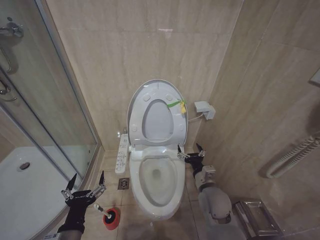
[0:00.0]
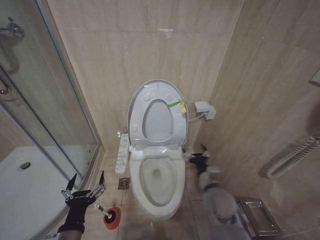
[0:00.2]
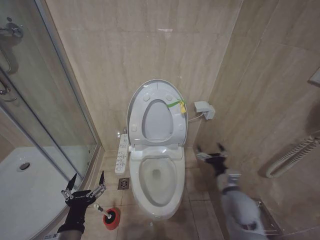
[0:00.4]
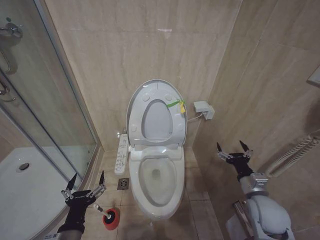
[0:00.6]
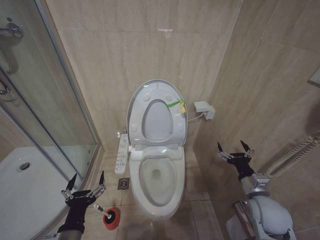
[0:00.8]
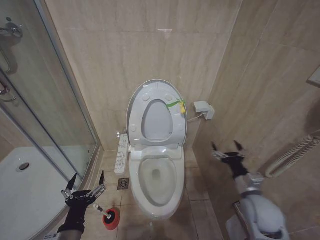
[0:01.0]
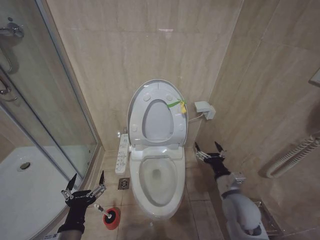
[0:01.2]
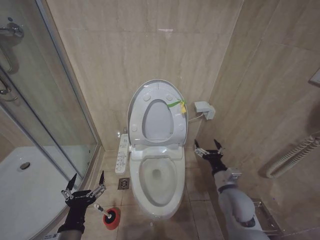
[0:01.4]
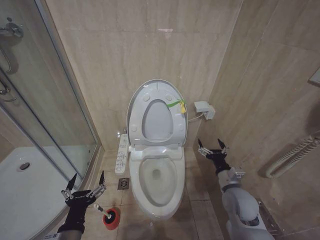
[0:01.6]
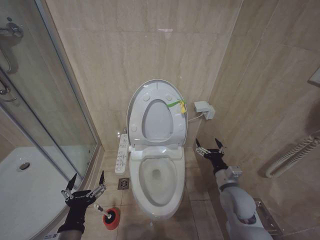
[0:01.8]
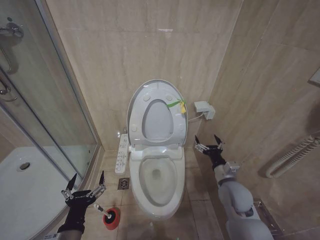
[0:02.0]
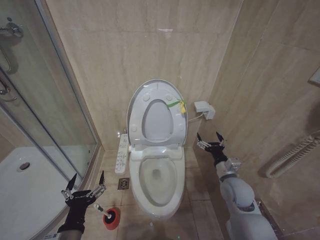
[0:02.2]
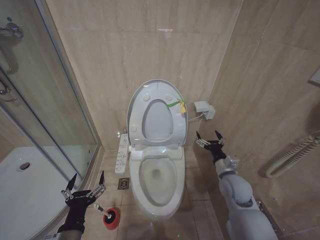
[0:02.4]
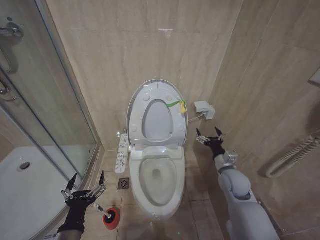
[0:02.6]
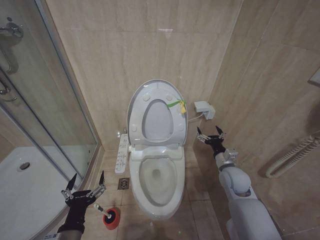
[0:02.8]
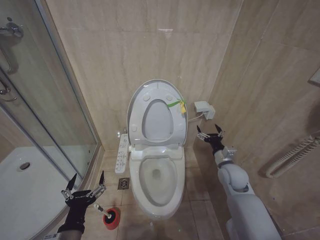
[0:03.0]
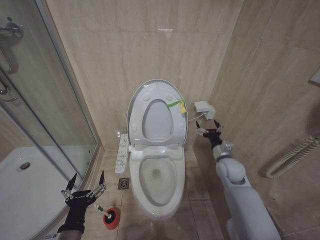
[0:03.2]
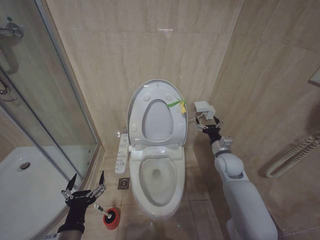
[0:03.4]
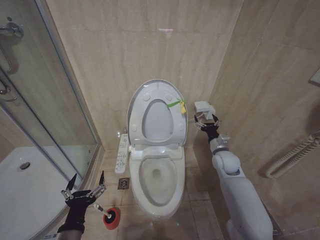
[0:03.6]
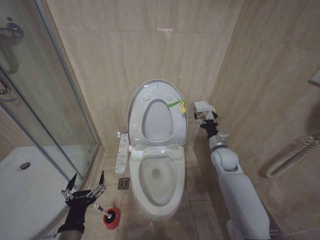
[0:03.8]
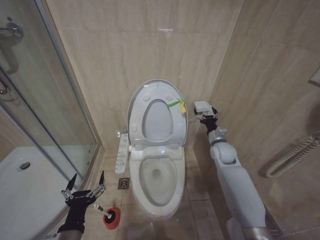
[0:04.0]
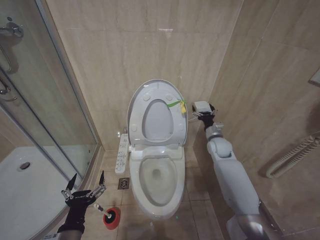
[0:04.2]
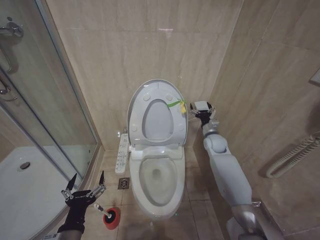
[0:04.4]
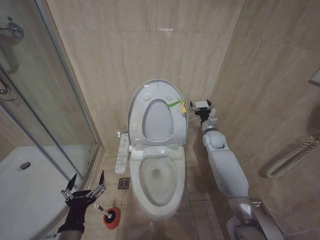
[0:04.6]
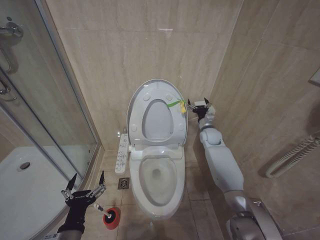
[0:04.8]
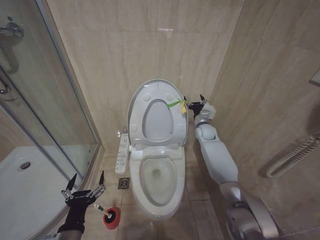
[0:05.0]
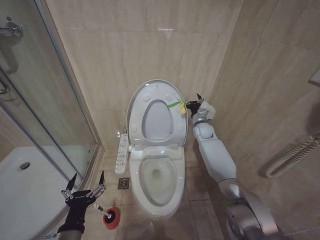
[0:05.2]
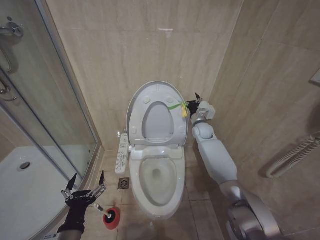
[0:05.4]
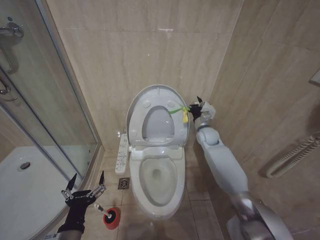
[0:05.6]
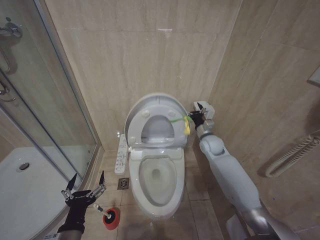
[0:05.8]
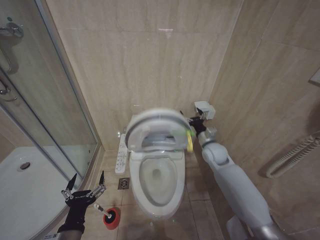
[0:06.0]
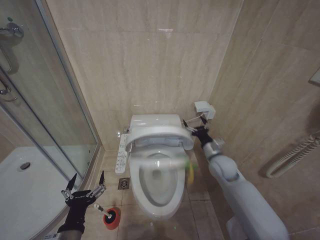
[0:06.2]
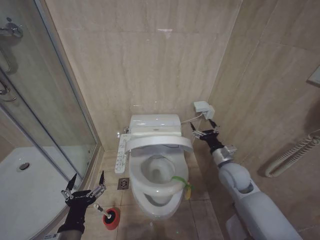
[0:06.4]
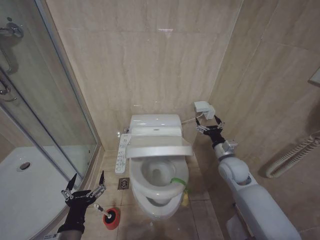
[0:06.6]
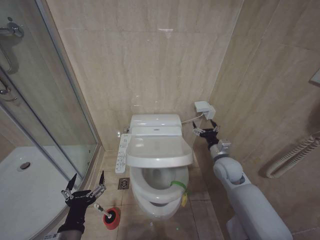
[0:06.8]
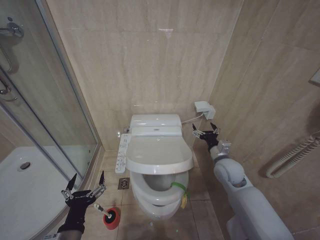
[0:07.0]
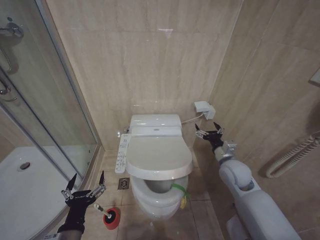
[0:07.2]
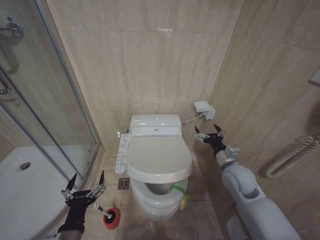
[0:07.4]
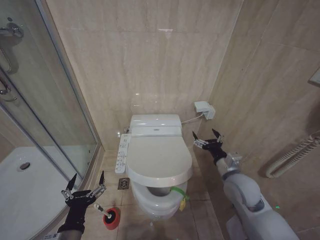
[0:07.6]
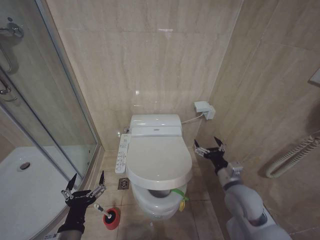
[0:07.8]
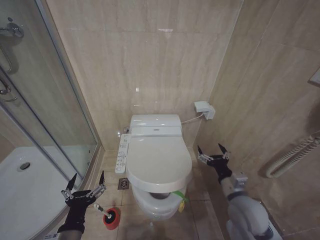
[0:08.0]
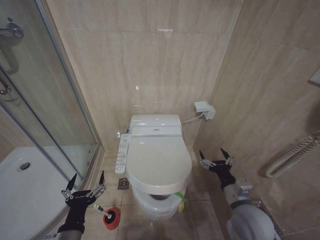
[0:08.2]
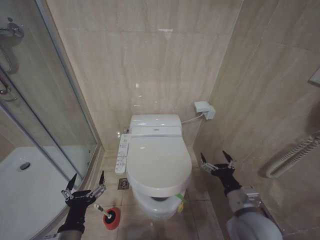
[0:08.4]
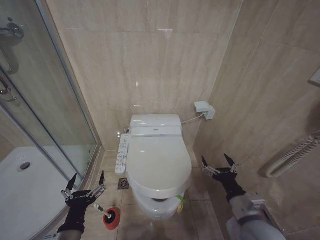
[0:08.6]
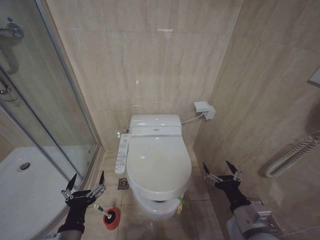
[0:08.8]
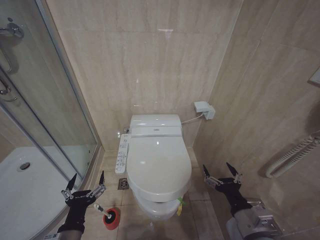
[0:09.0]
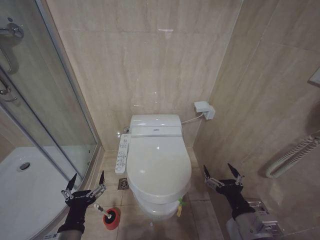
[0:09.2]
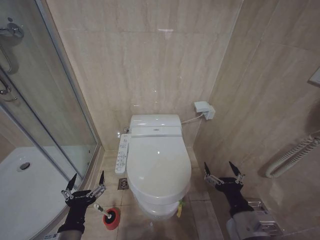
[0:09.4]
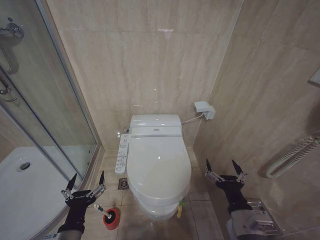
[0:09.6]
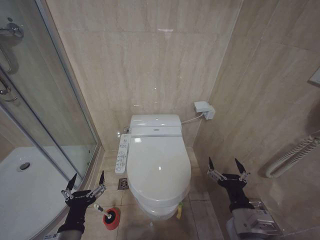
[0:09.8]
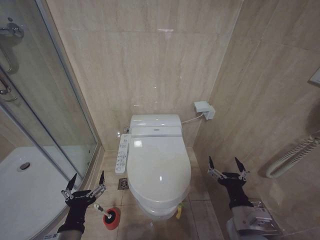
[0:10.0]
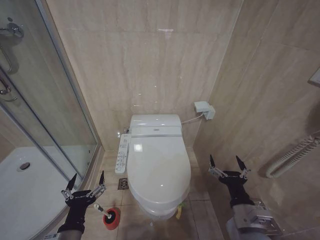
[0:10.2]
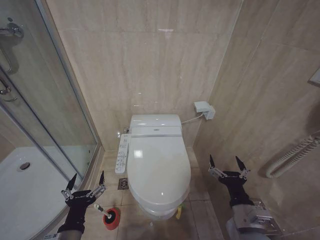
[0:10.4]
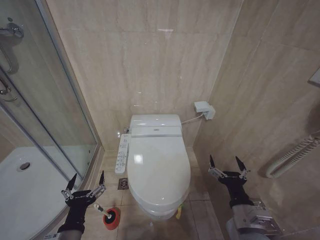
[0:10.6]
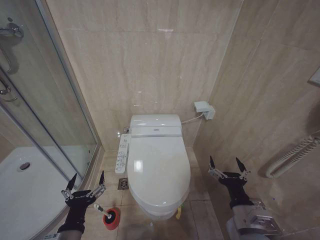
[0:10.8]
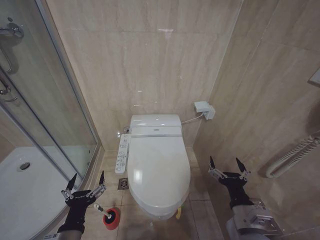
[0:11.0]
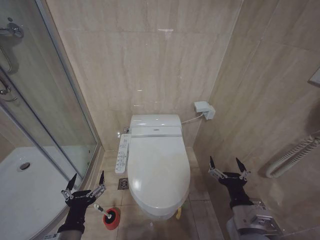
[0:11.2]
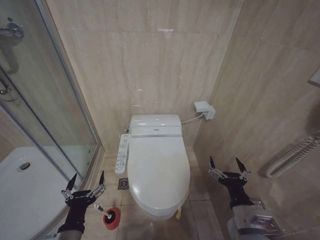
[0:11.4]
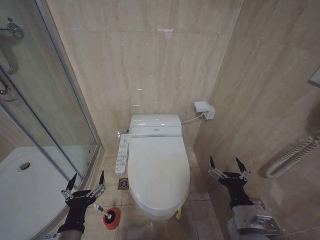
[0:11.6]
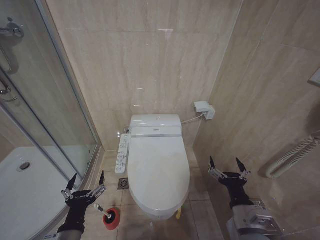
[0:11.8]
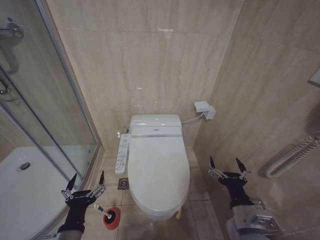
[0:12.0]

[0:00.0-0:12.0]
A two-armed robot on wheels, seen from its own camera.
Task of the whole recording: Open the toilet lid, clean the toilet bowl with a toilet brush, close the toilet lid, and flush.
0:00.0 to 0:01.6: The right gripper shifts approximately 10 cm to the right.
0:01.6 to 0:03.0: The right gripper heads forward, covering about 10 cm.
0:03.0 to 0:04.4: The right gripper is displaced forward by approximately 15 cm.
0:04.4 to 0:06.0: The right gripper ends up roughly 5 cm from where it was.
0:06.0 to 0:07.6: The right gripper is displaced backward by about 15 cm.
0:07.6 to 0:09.0: The right gripper shifts approximately 15 cm backward.
0:09.0 to 0:10.4: The grippers make only small movements.
0:10.4 to 0:12.0: The two grippers keep their place.

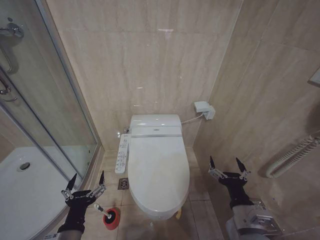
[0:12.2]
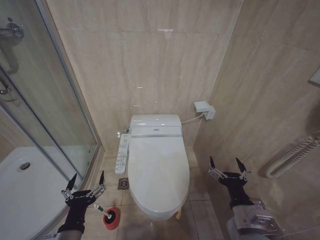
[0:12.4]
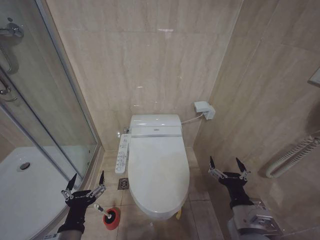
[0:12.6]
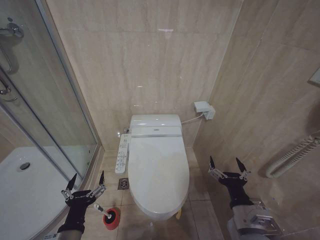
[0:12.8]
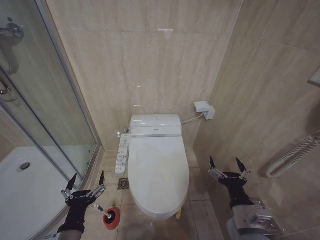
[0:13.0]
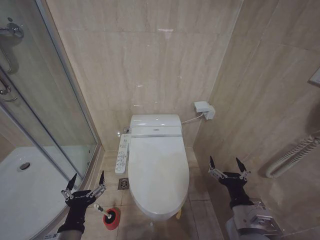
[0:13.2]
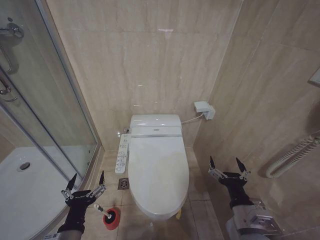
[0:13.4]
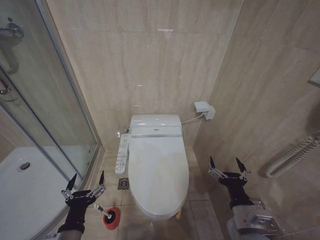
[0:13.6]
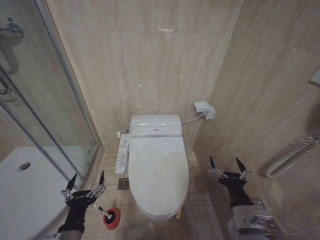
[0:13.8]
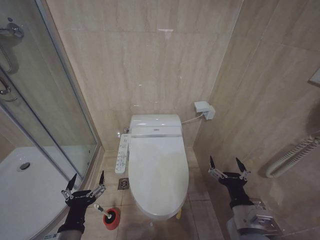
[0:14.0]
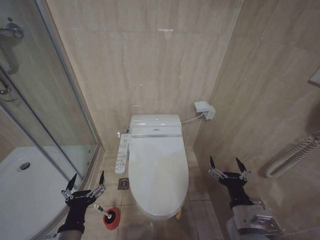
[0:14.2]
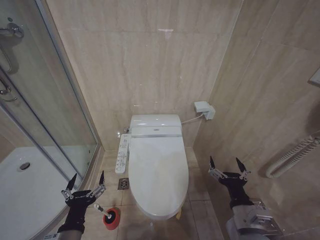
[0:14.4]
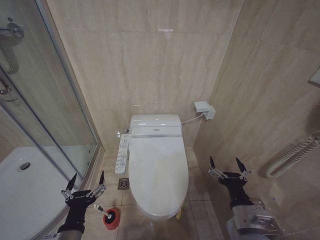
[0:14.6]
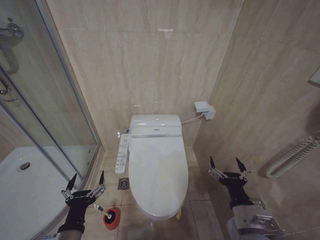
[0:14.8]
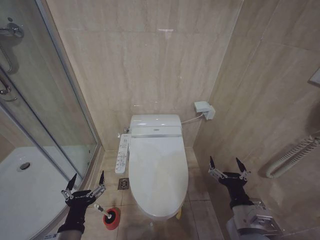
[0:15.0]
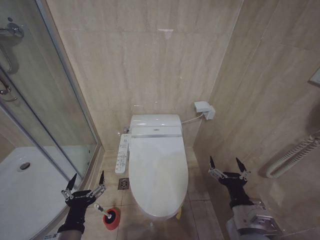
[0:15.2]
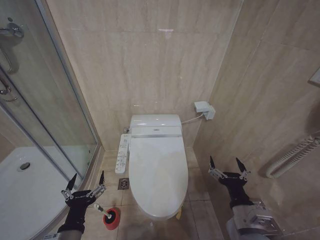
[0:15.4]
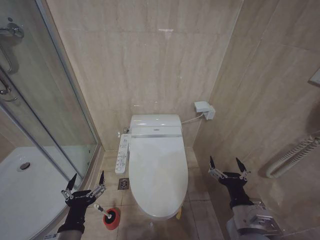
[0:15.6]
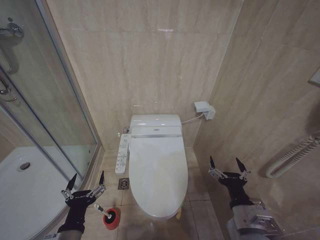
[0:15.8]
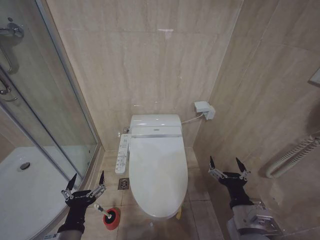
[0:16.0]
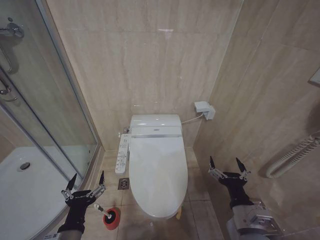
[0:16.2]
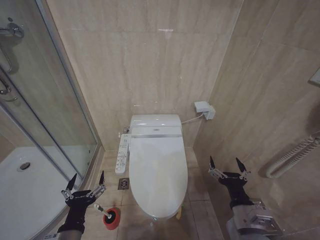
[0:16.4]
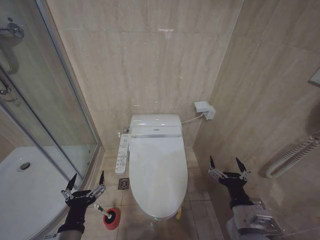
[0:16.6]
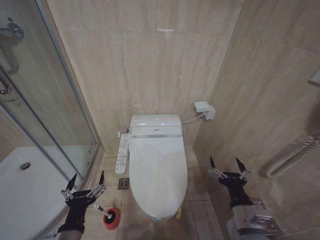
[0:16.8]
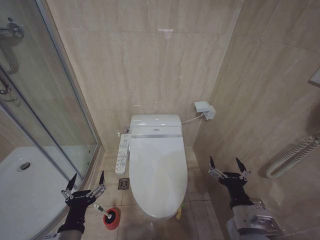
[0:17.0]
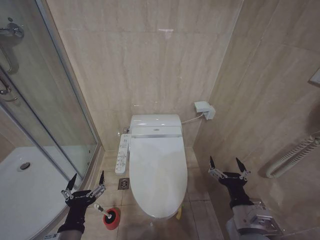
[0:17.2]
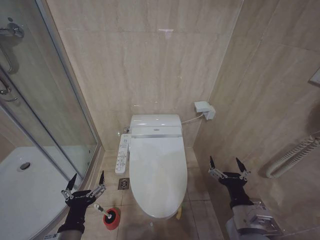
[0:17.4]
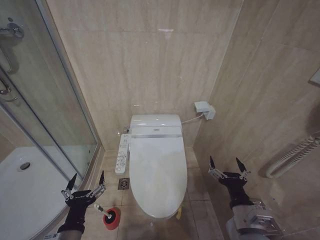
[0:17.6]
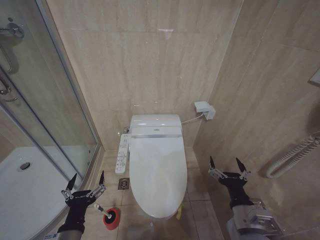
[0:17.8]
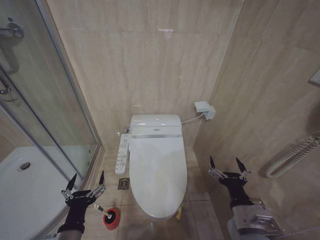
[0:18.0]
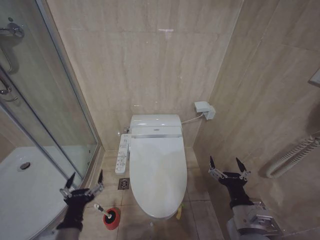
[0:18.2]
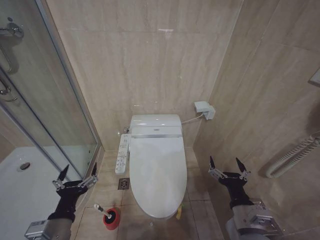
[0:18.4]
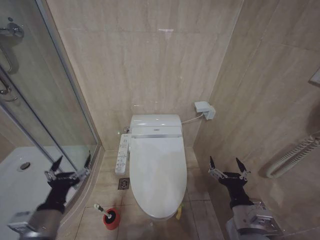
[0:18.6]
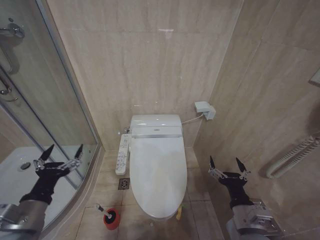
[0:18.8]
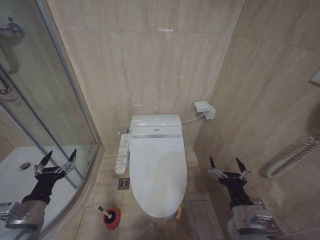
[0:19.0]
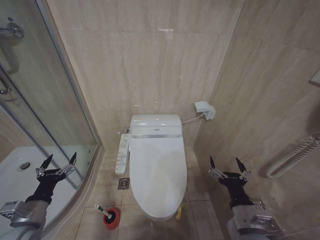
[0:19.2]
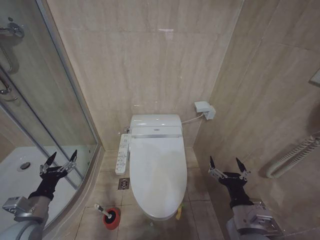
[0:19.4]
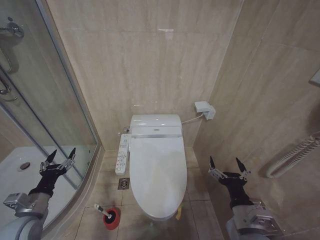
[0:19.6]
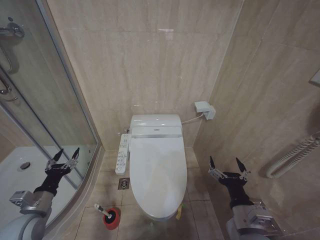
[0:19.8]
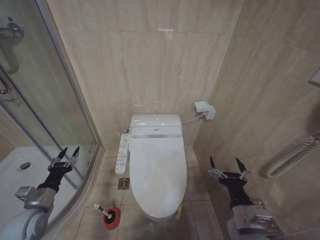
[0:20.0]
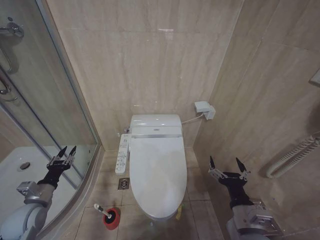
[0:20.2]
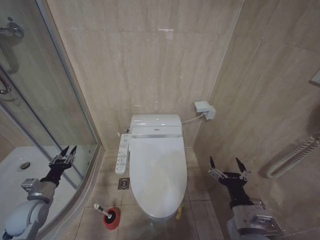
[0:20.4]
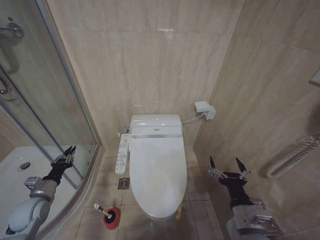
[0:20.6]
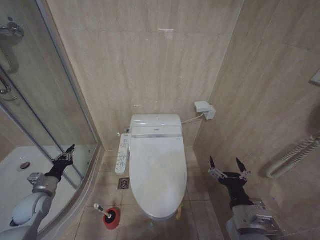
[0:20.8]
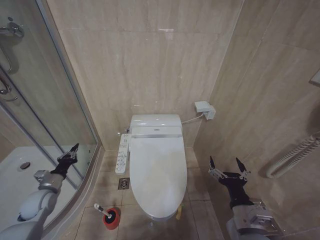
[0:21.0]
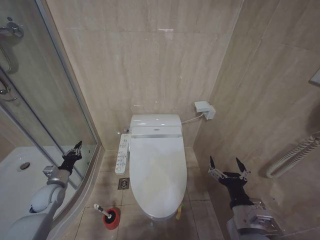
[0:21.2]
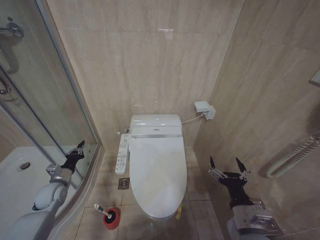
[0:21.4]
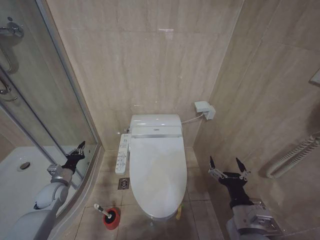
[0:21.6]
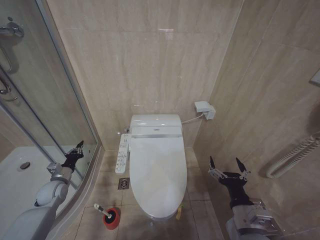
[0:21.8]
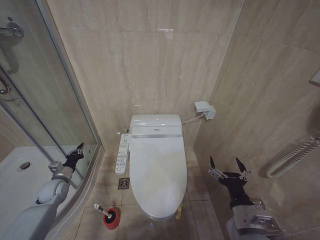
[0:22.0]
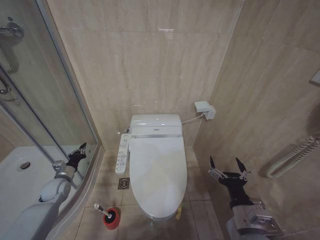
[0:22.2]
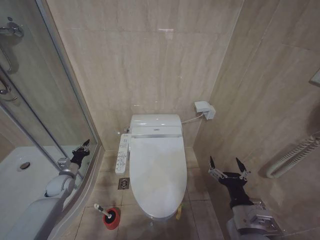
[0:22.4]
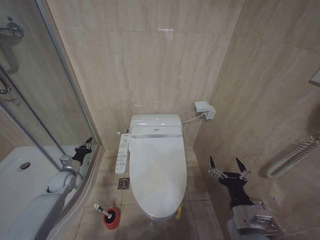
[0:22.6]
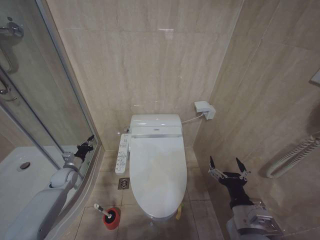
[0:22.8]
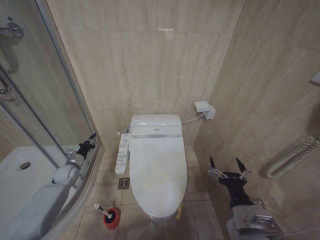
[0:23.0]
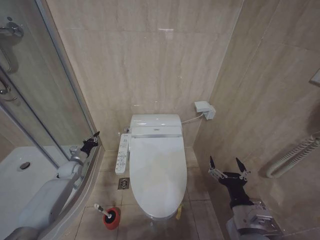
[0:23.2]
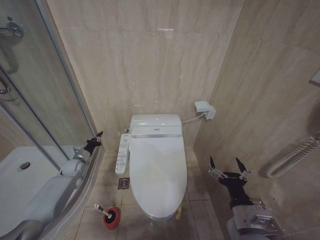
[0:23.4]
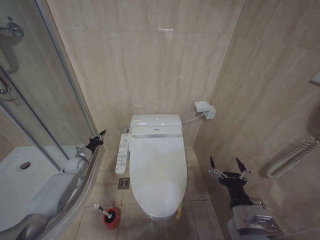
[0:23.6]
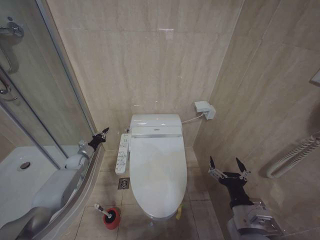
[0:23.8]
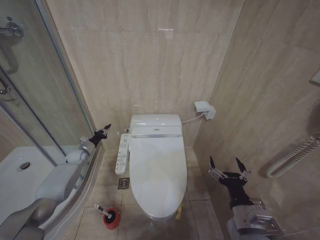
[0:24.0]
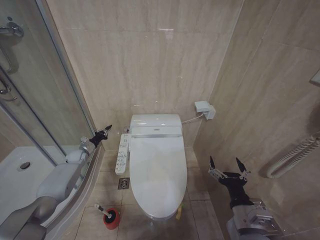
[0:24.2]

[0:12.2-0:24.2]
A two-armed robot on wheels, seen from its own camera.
Task of the whole recording: Open the toilet lid, clean the toilet bowl with a toilet brush, close the toilet lid, and flush.
0:12.2 to 0:18.2: Both grippers stay about where they are.
0:18.2 to 0:19.8: The left gripper heads to the left and forward, covering some 20 cm.
0:19.8 to 0:21.2: The left gripper goes some 15 cm forward and downward, and closes its fingers.
0:21.2 to 0:22.6: The left gripper heads forward, covering approximately 5 cm.
0:22.6 to 0:24.2: The left gripper moves forward, some 15 cm.
